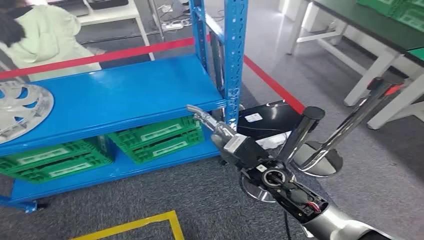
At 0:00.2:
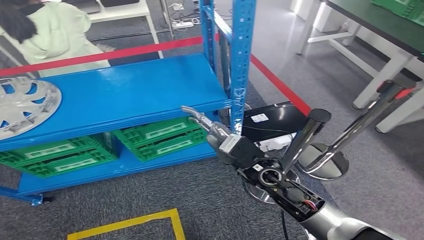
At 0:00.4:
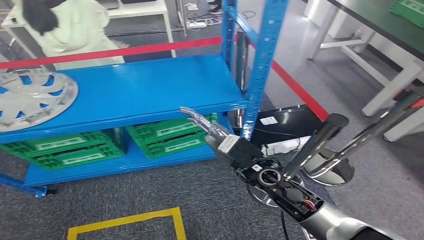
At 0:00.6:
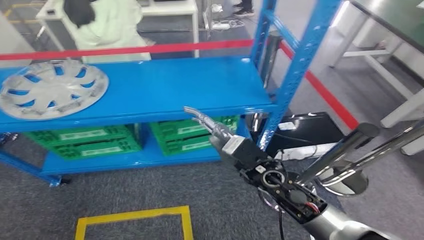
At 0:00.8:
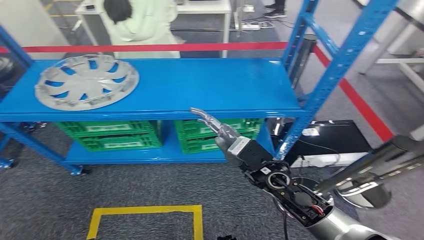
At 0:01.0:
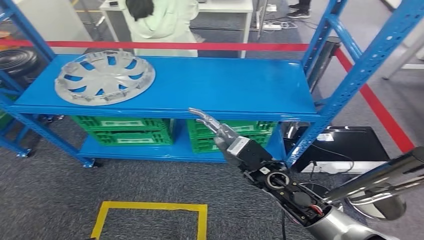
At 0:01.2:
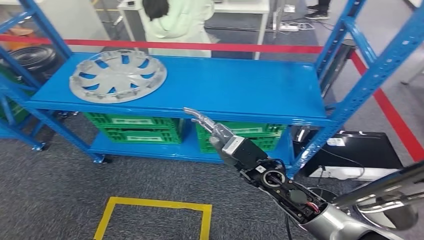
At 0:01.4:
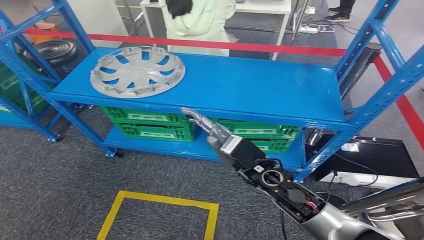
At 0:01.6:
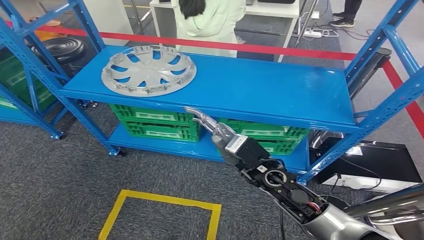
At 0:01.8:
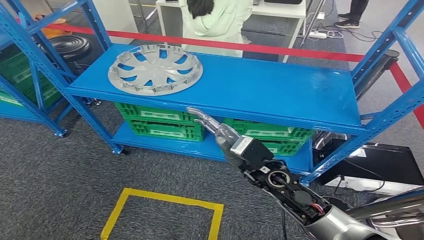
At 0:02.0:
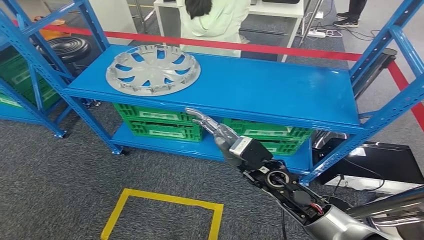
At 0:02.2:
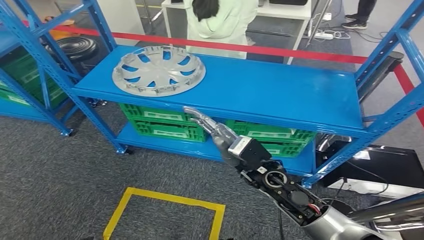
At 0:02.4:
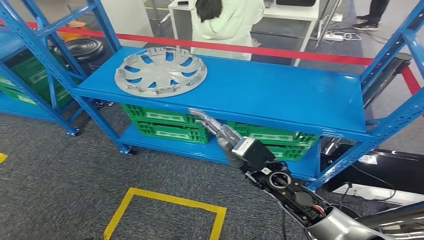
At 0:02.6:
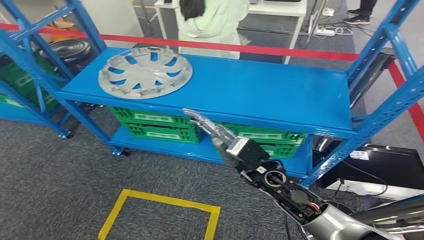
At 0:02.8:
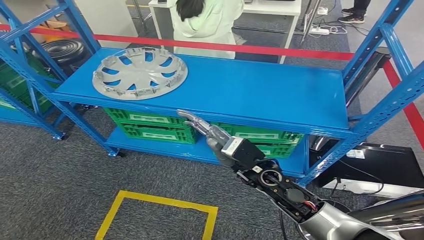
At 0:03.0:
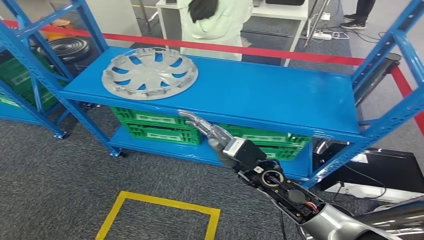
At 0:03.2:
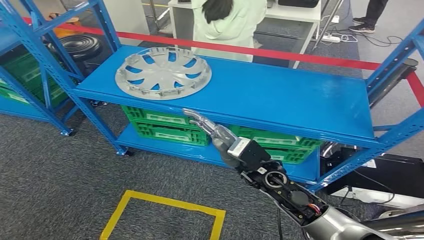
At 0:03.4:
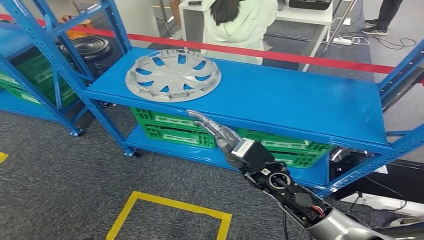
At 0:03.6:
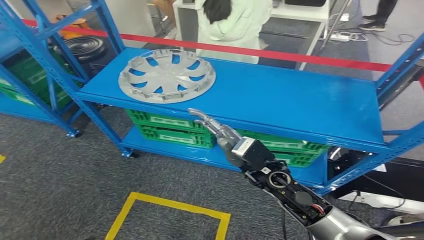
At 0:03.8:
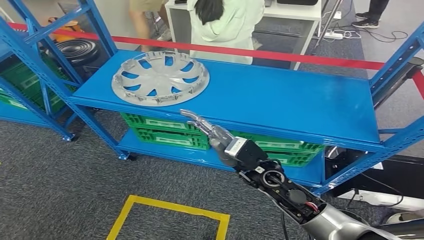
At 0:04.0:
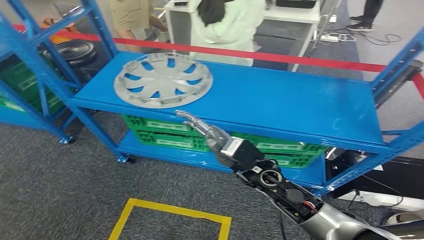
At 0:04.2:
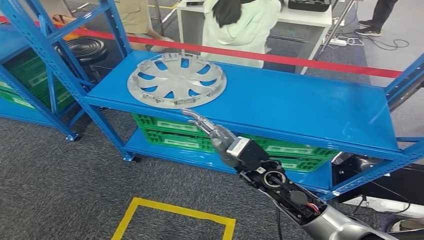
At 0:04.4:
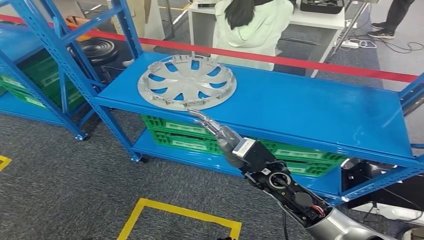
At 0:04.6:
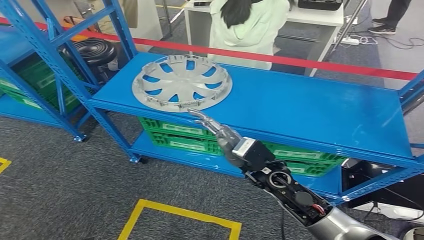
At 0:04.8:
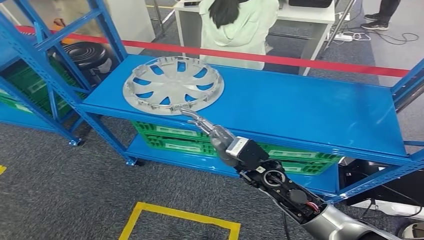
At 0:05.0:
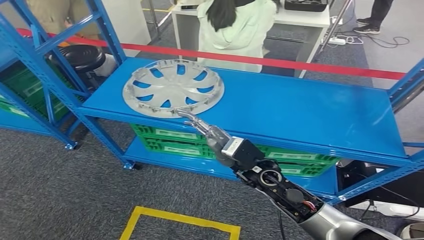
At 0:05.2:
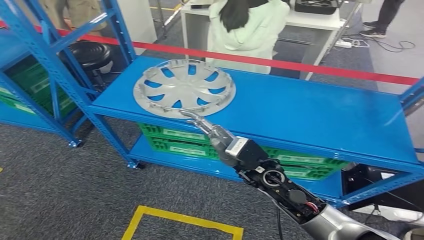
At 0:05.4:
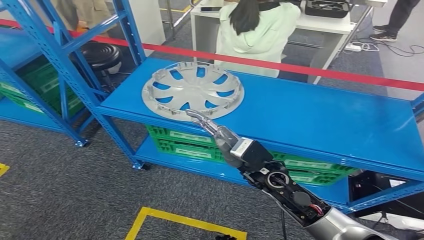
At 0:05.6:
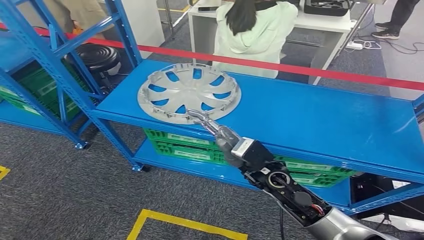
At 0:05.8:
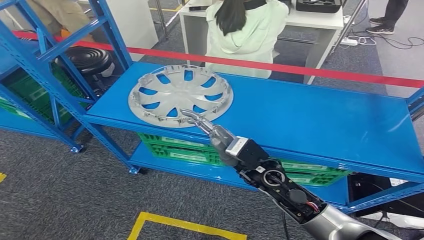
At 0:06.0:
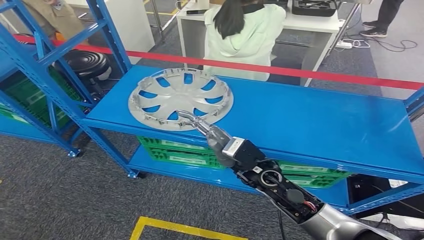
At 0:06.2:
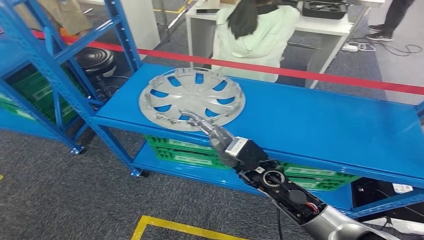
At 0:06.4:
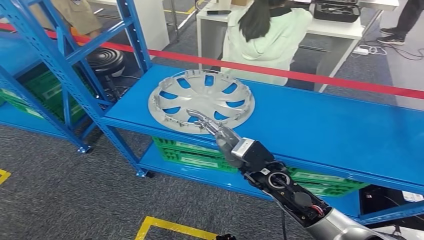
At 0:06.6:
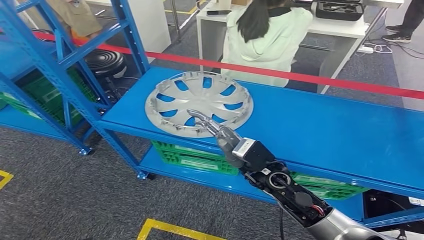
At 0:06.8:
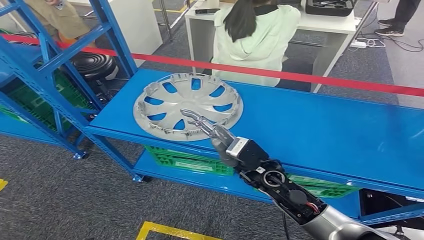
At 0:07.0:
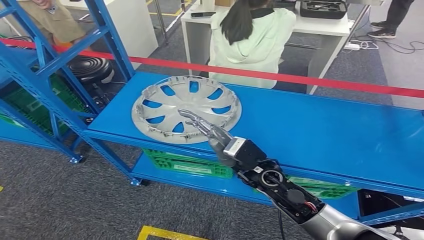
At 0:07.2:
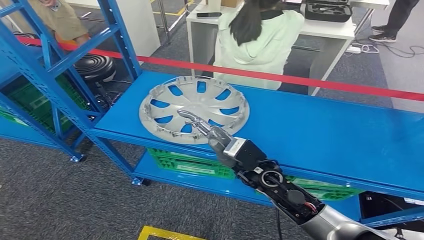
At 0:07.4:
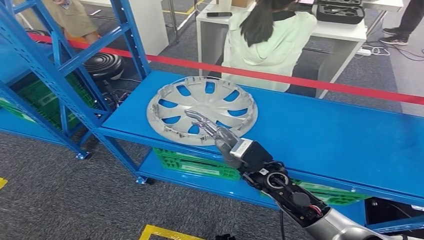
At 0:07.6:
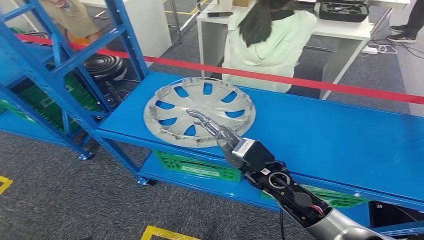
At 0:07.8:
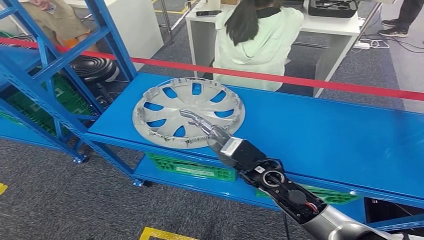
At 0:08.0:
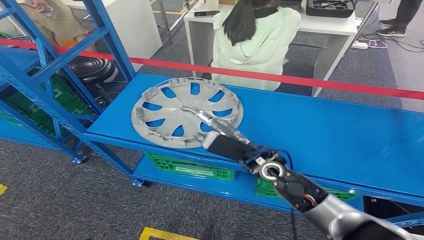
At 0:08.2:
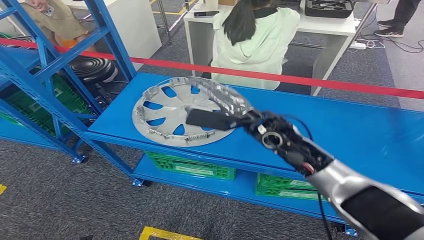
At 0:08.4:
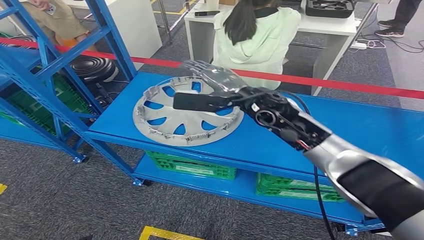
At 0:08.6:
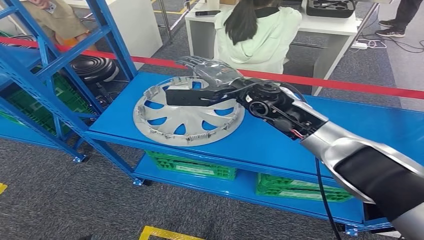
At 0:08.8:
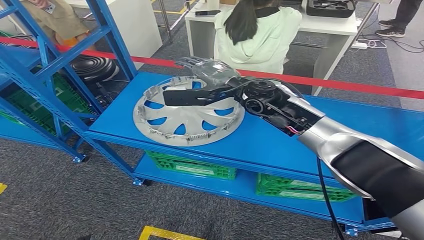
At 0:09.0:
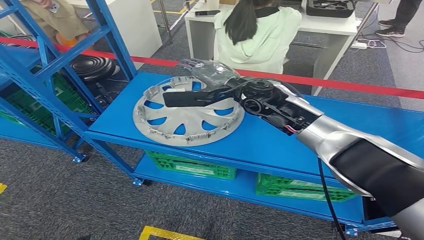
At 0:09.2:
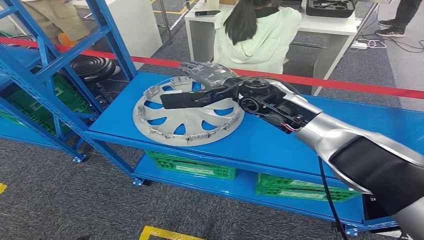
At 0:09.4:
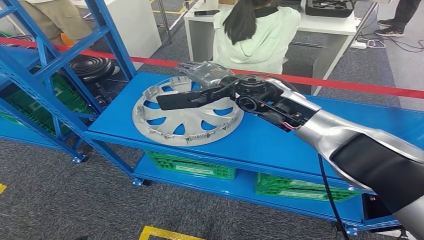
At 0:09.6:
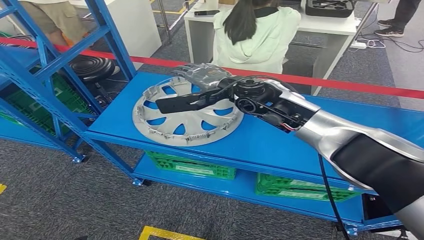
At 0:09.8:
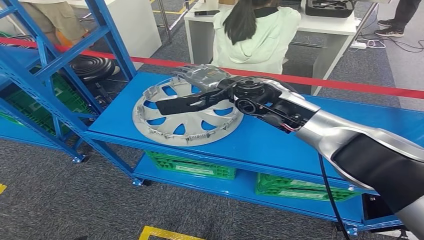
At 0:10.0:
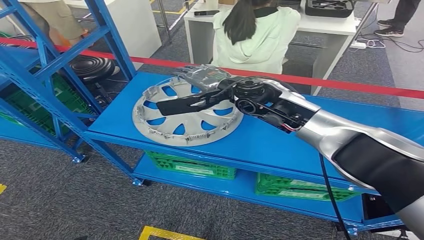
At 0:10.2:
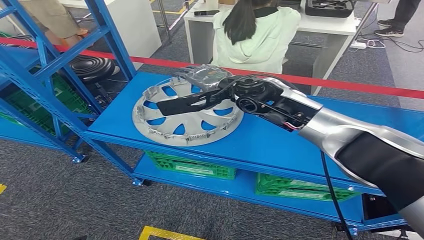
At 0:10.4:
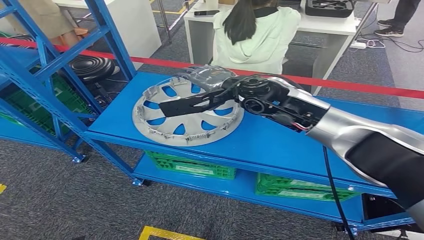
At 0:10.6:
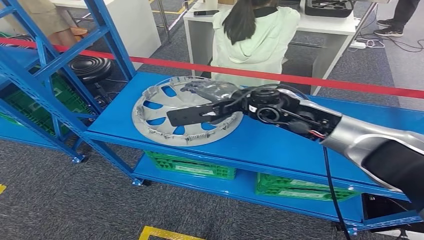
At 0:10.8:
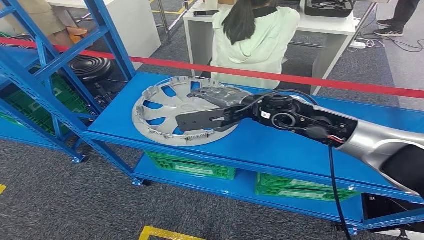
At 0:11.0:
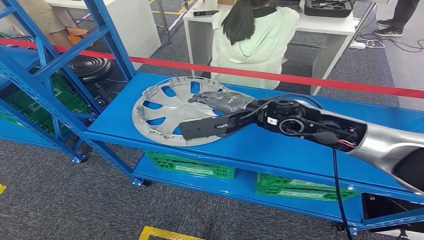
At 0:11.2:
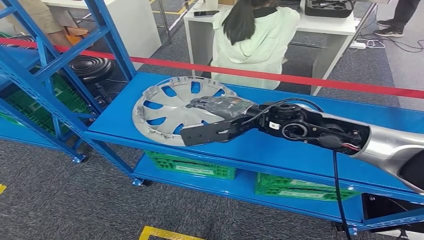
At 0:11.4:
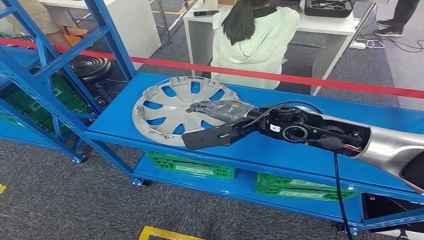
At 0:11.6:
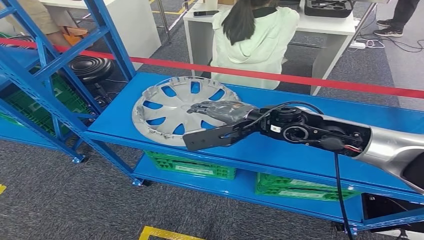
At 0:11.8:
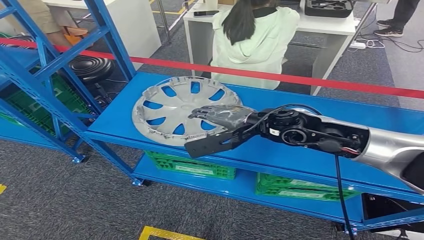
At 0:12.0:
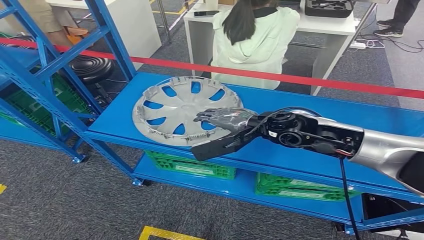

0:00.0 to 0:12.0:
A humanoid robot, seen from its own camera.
0:09.0 to 0:10.4: The hands make only small movements.
0:10.4 to 0:12.0: The right hand goes roughly 10 cm backward, downward and to the right.

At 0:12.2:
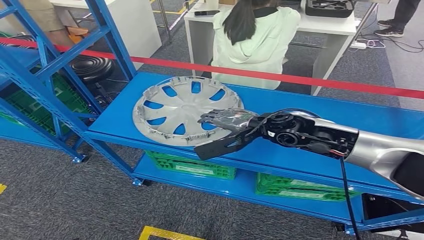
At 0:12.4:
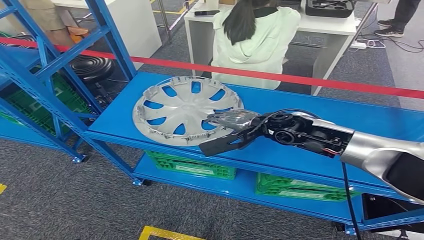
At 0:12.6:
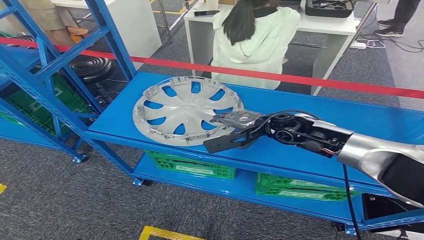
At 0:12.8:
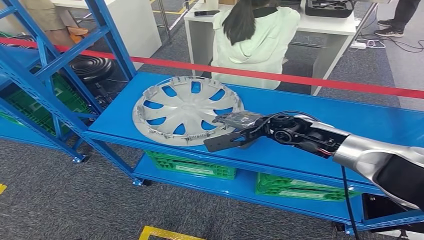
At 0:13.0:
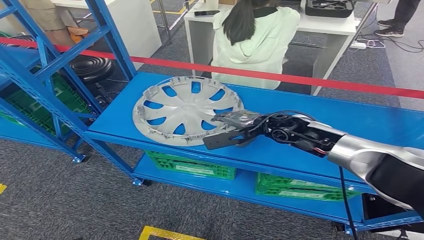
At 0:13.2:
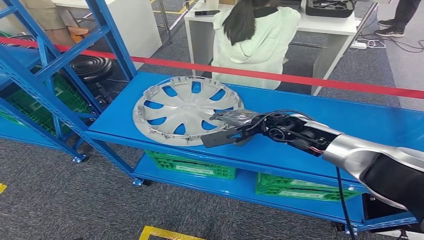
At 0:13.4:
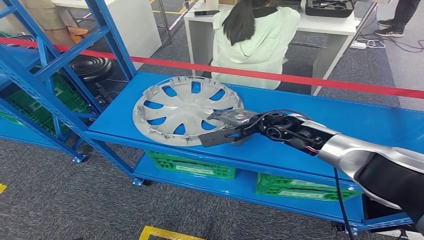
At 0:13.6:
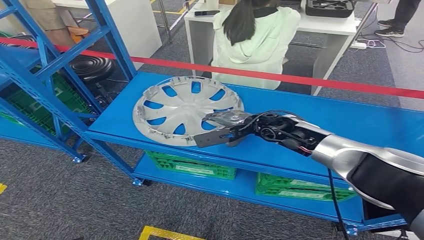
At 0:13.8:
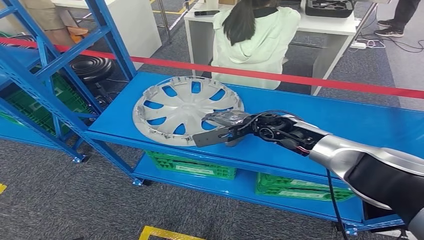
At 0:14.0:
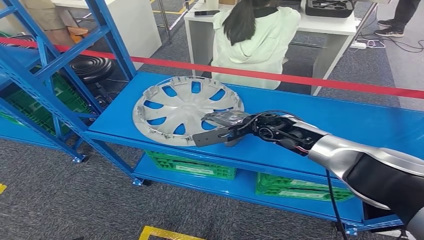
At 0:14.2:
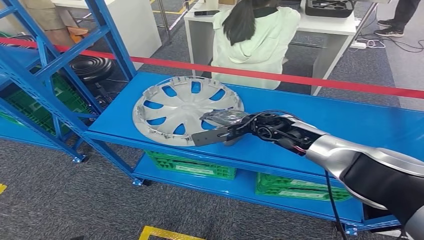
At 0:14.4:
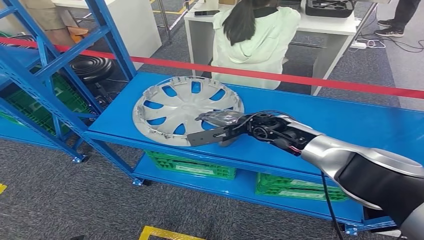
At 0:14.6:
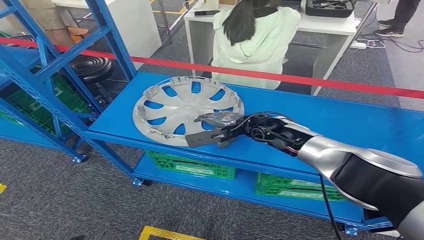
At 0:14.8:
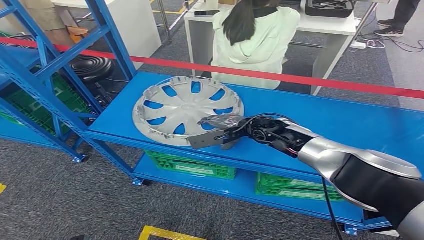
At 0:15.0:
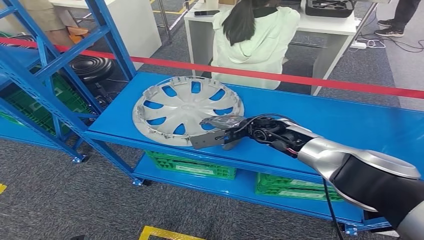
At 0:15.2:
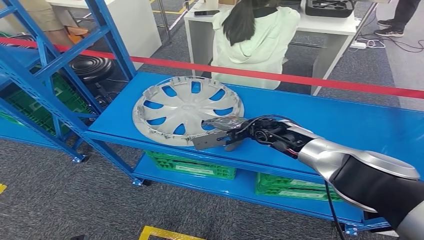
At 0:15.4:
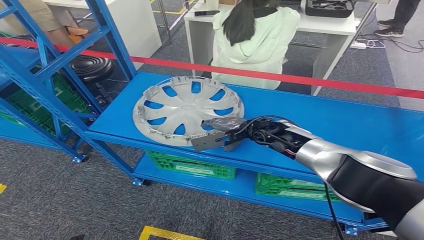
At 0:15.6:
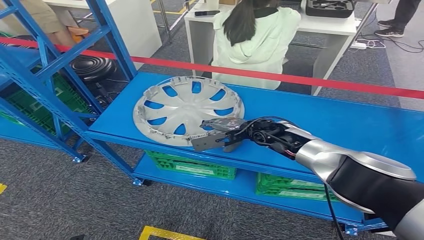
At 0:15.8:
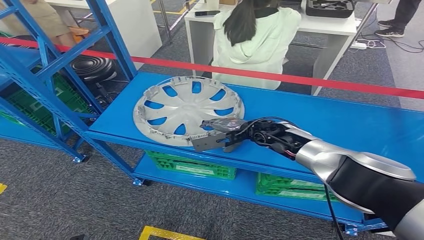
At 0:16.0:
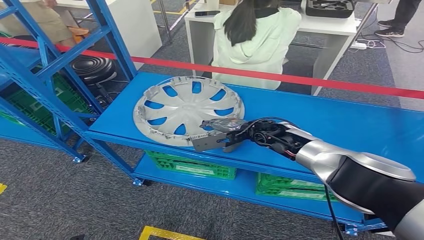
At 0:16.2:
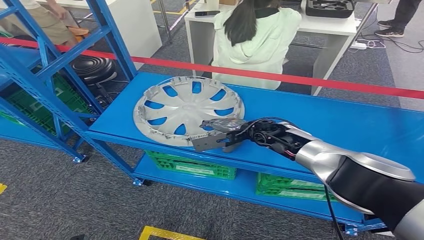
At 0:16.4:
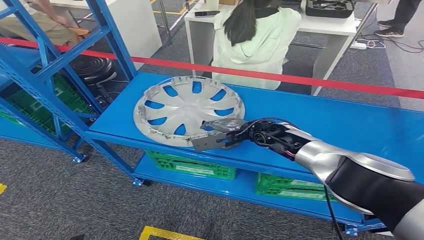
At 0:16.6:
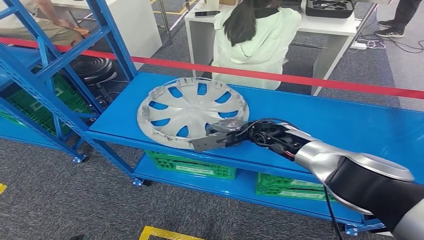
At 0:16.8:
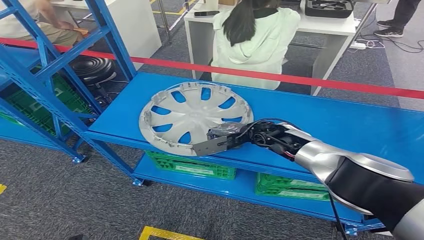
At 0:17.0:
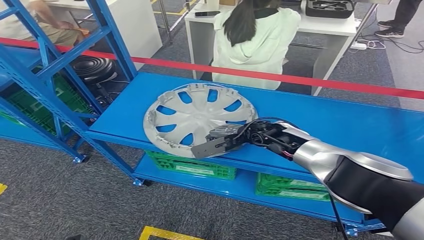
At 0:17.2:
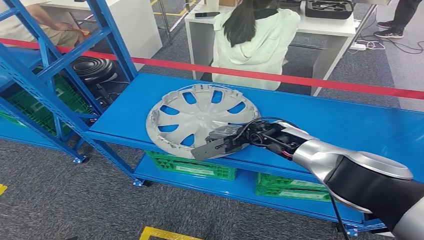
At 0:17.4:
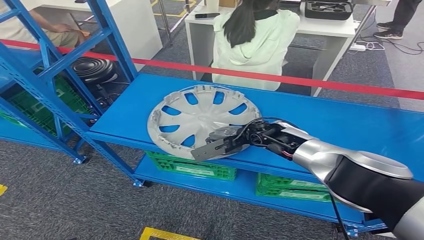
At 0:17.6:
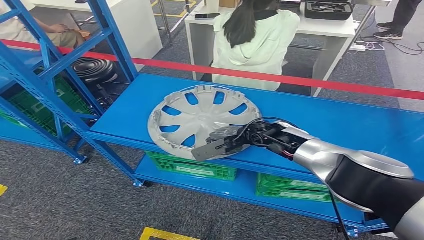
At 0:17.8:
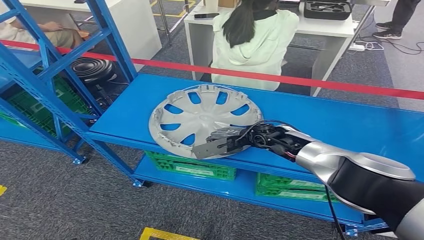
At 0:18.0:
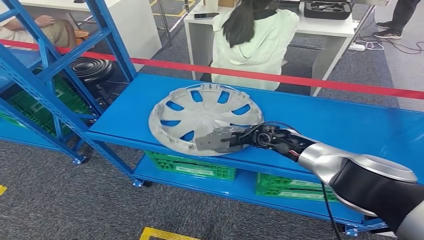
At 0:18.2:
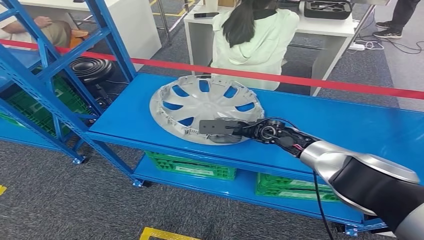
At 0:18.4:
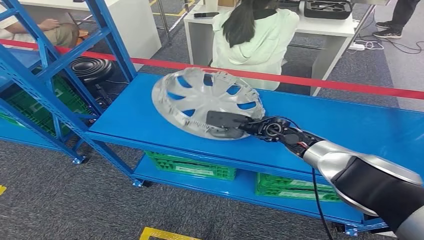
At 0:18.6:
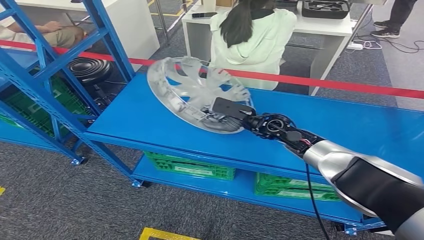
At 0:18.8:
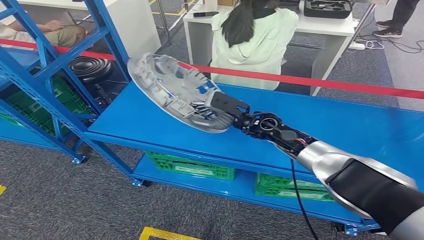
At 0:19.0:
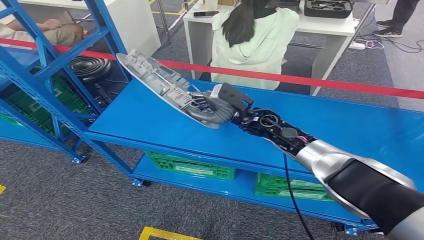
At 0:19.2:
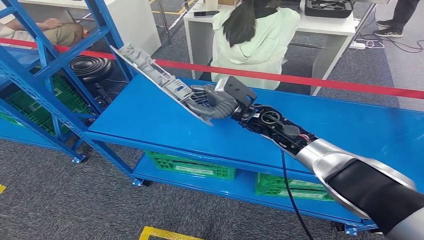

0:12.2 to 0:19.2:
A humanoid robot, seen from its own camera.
0:12.2 to 0:13.6: The right hand is displaced downward and forward by about 10 cm.
0:13.6 to 0:17.8: The hands move only a little.
0:17.8 to 0:19.2: The right hand shifts about 5 cm upward.
